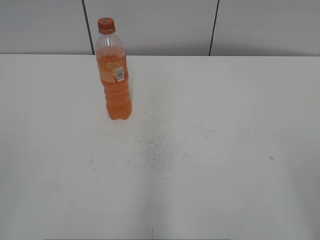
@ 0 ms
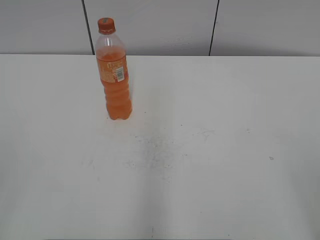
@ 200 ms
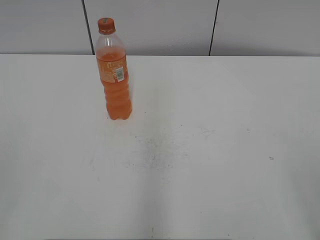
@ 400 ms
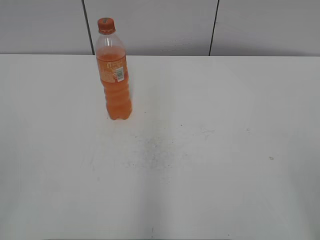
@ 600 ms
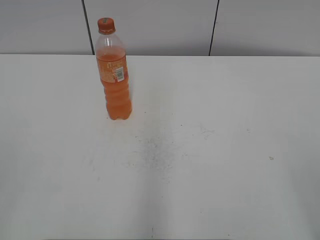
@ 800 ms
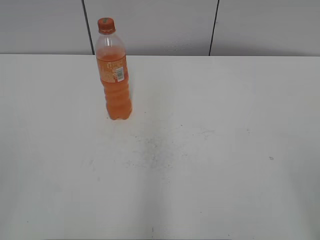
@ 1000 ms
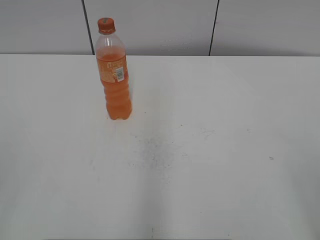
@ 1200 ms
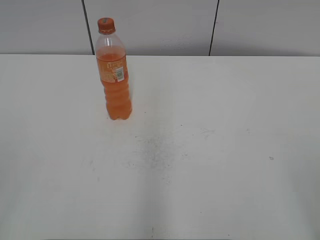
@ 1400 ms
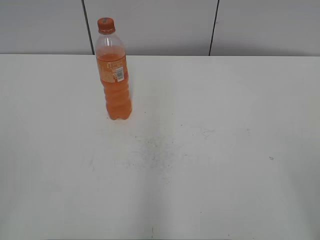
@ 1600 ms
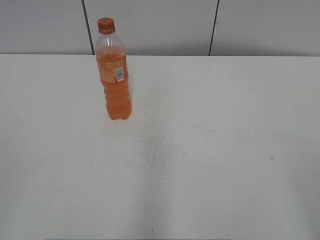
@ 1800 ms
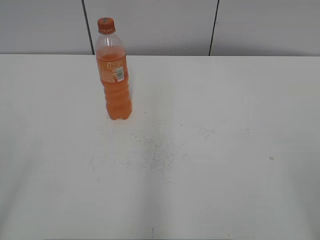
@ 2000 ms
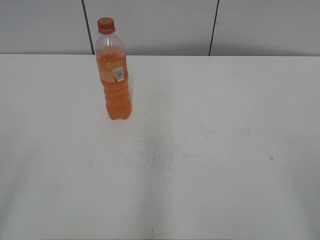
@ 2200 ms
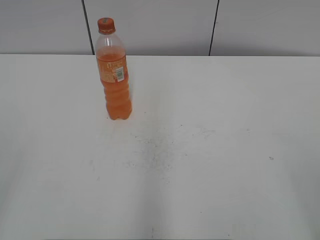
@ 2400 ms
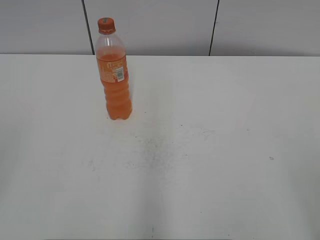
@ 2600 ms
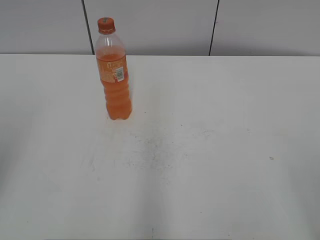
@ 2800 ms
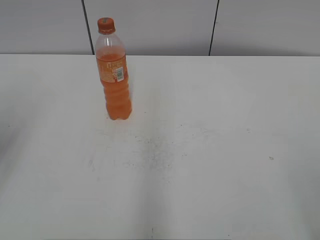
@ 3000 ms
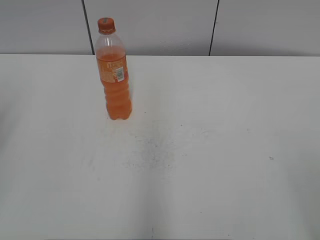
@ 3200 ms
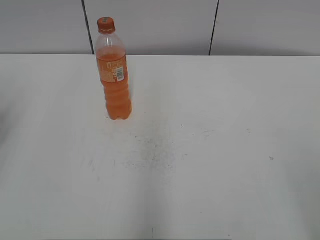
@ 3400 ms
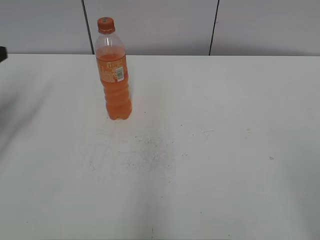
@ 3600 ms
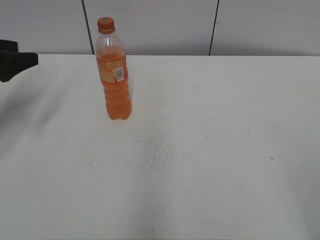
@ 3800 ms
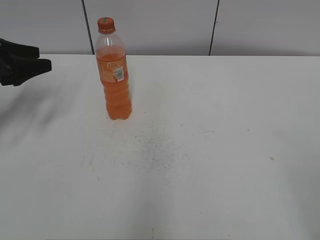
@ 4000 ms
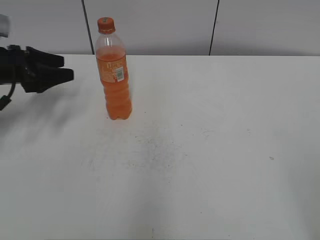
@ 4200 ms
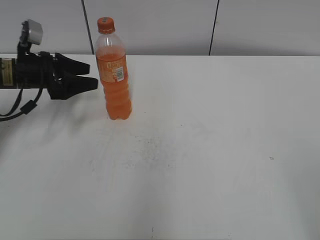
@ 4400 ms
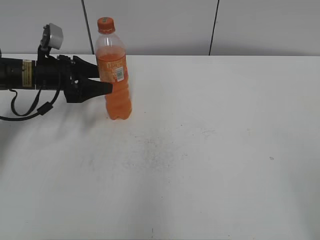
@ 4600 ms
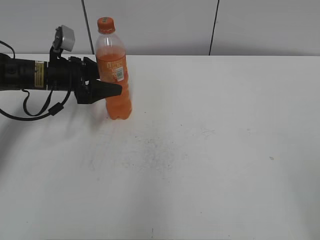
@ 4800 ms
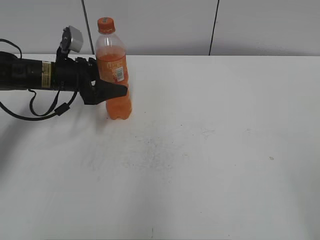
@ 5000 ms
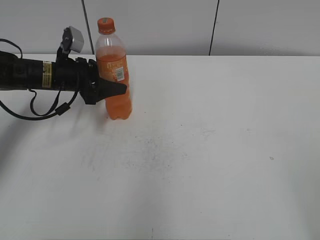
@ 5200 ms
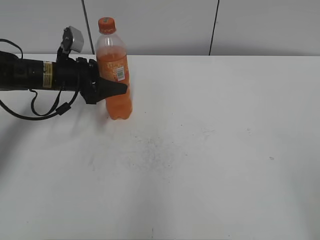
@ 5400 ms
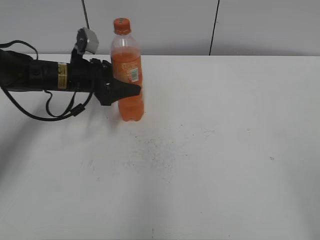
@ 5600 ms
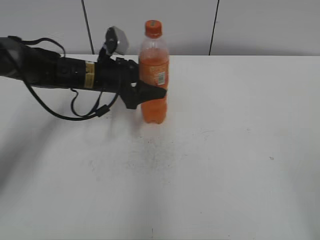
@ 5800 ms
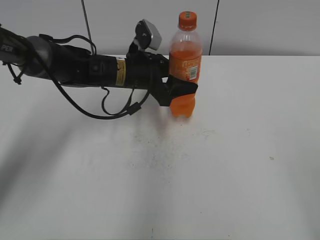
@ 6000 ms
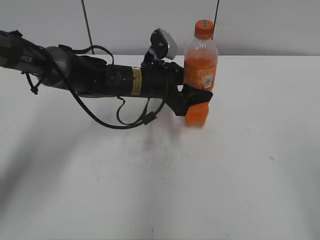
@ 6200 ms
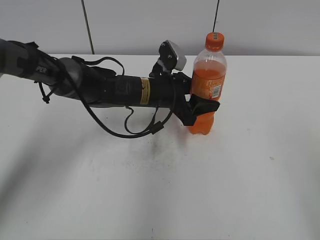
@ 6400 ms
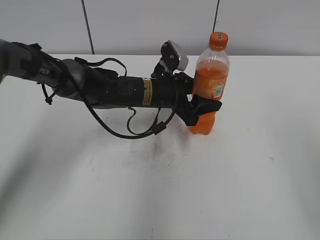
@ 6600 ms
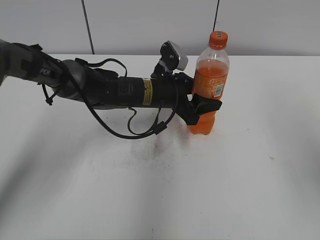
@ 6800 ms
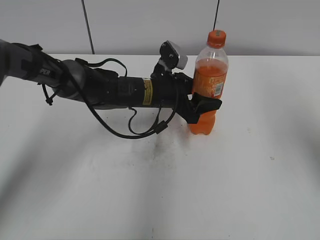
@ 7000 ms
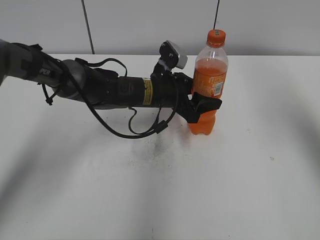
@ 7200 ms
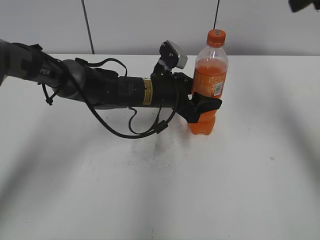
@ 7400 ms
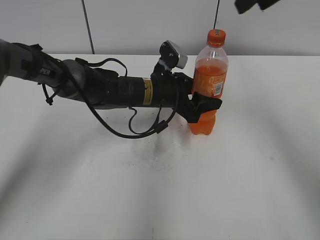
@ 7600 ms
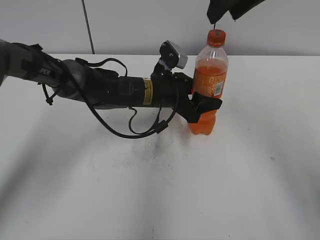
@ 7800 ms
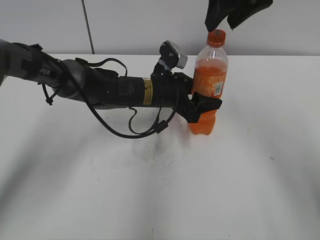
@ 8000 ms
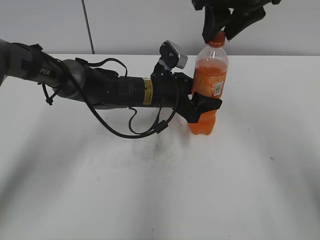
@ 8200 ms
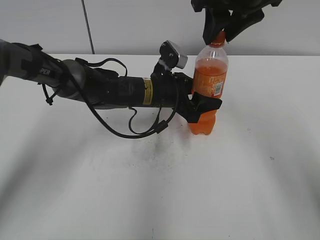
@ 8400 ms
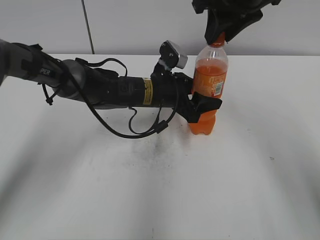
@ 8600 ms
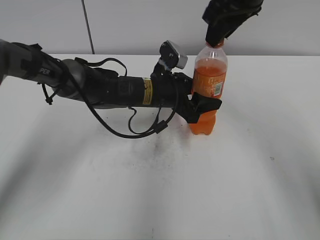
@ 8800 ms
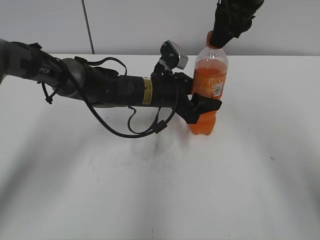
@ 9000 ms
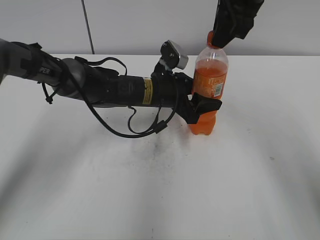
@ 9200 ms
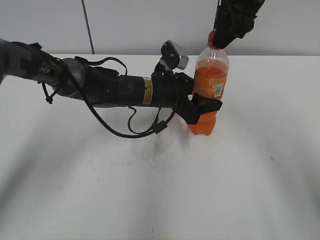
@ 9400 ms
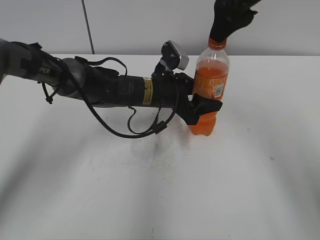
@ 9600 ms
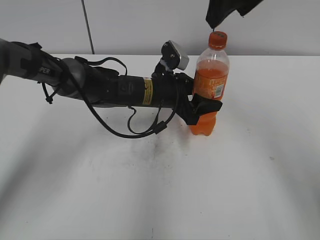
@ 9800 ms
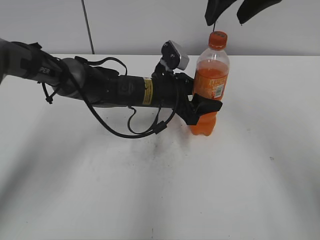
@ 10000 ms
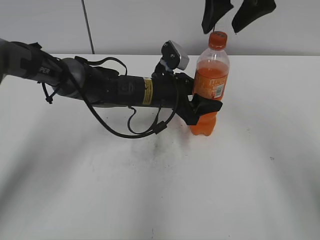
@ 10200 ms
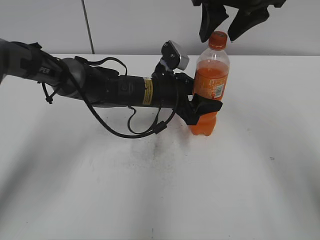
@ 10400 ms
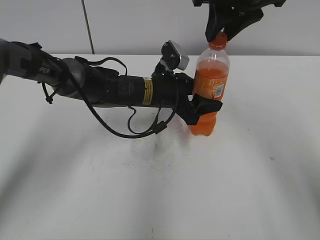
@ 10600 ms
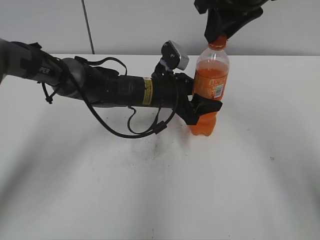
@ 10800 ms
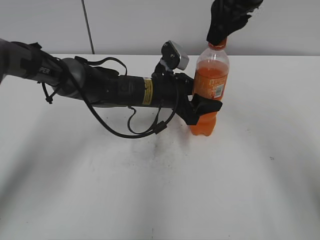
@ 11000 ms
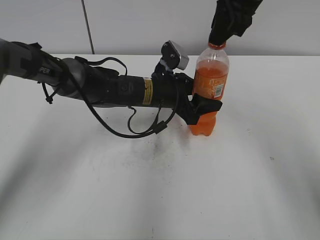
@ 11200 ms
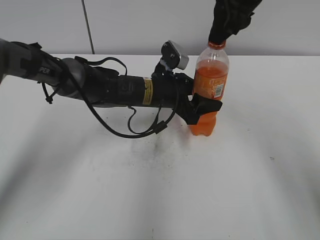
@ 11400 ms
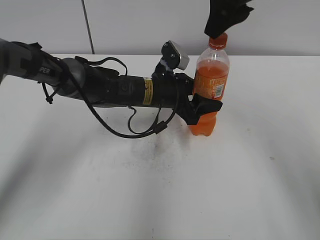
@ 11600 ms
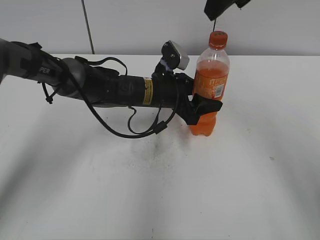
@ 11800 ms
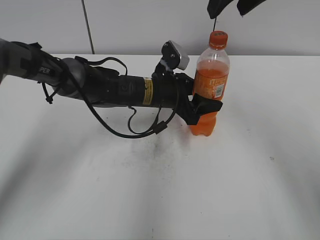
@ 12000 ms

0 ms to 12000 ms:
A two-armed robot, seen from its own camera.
Step, 0 ms to 5000 ms: Grab the Mirinda with the left hand.
Step, 5400 ms to 6800 ms: Move the Mirinda from left to right.
3000 ms to 4400 ms: The left gripper goes some 30 cm forward and downward.
4400 ms to 6000 ms: The left gripper goes some 20 cm to the right.
6000 ms to 7600 ms: The right gripper moves forward, approximately 35 cm. The left gripper moves to the right, about 5 cm.
7600 ms to 9000 ms: The right gripper shifts approximately 5 cm downward.
9000 ms to 10400 ms: The right gripper opens up.
10400 ms to 12000 ms: The right gripper closes, then opens again.

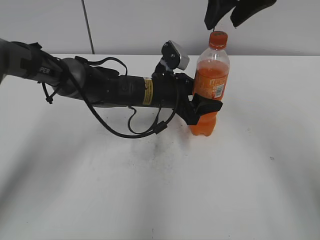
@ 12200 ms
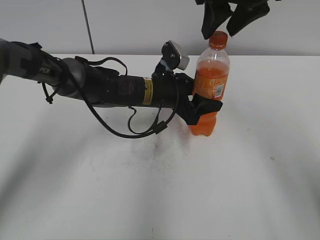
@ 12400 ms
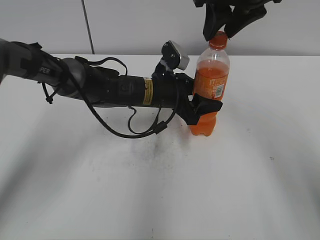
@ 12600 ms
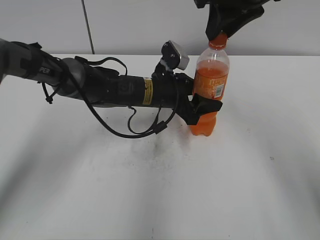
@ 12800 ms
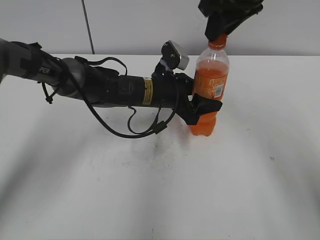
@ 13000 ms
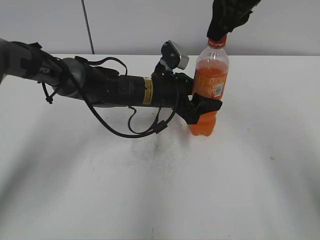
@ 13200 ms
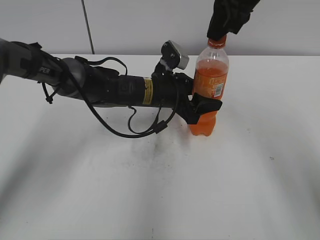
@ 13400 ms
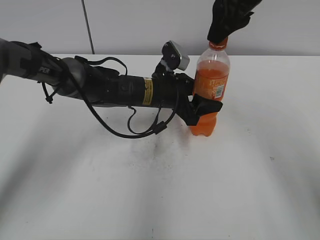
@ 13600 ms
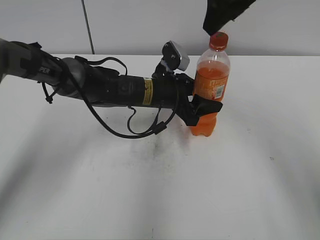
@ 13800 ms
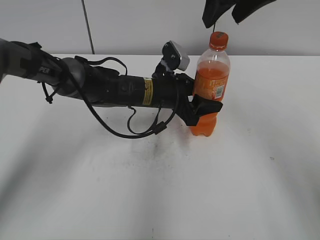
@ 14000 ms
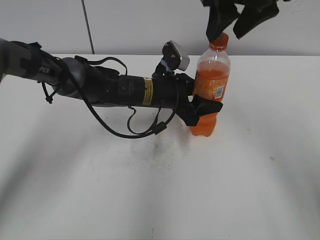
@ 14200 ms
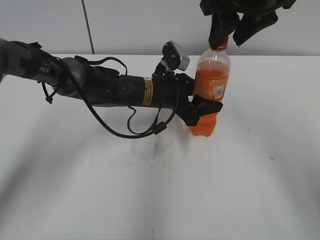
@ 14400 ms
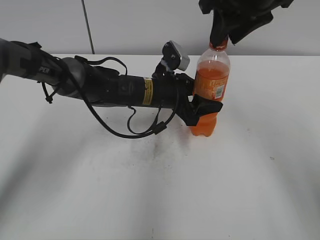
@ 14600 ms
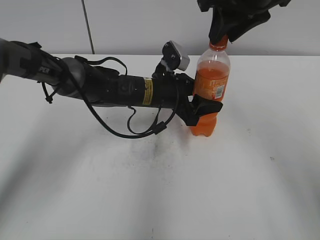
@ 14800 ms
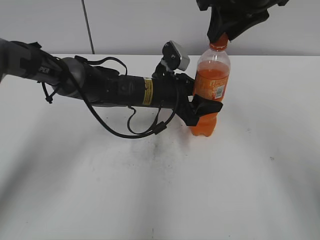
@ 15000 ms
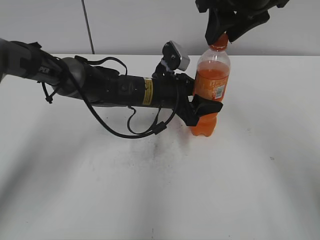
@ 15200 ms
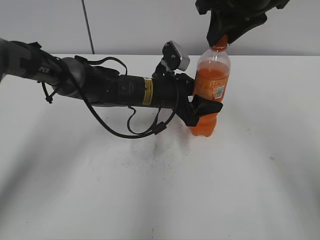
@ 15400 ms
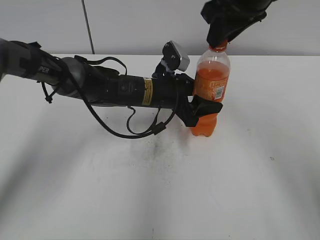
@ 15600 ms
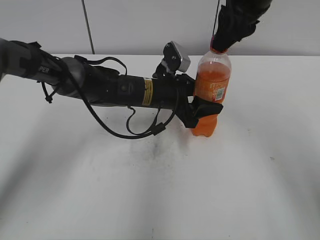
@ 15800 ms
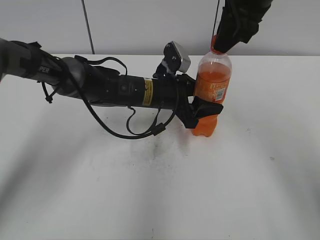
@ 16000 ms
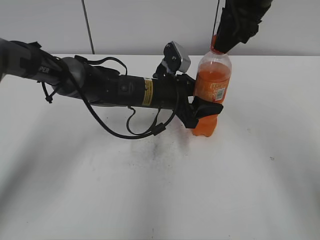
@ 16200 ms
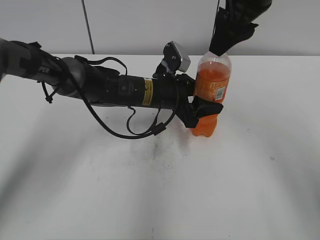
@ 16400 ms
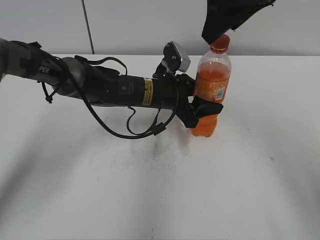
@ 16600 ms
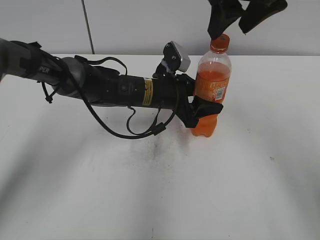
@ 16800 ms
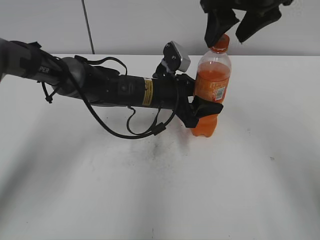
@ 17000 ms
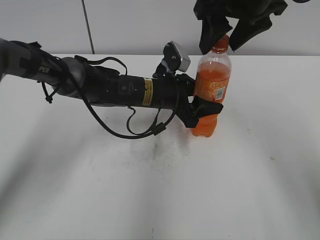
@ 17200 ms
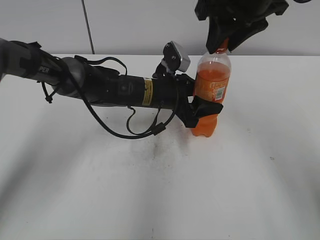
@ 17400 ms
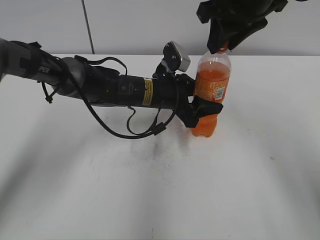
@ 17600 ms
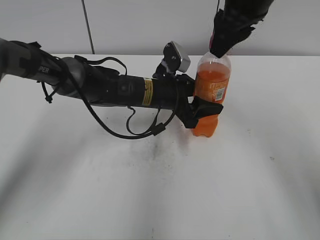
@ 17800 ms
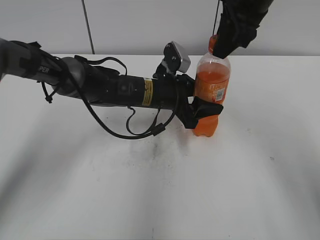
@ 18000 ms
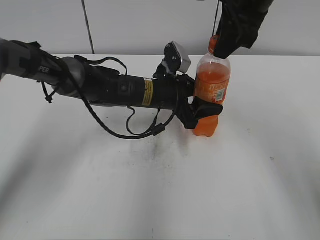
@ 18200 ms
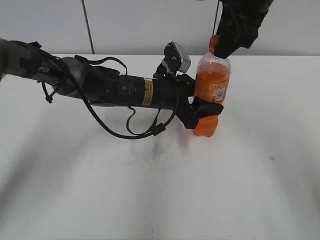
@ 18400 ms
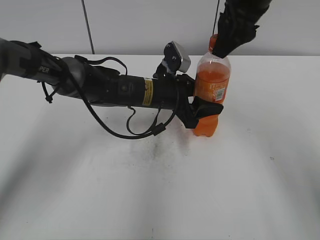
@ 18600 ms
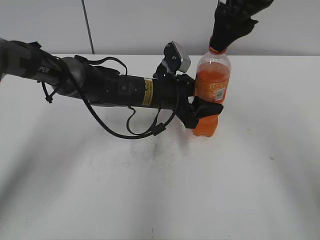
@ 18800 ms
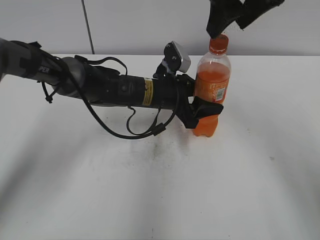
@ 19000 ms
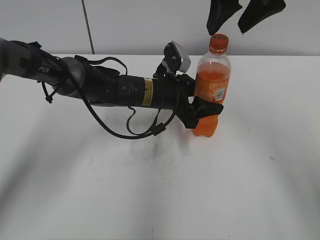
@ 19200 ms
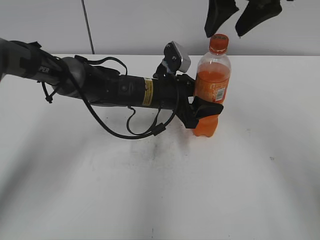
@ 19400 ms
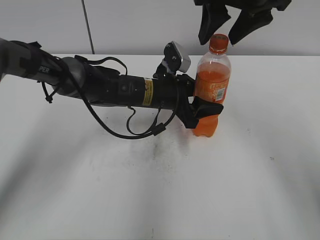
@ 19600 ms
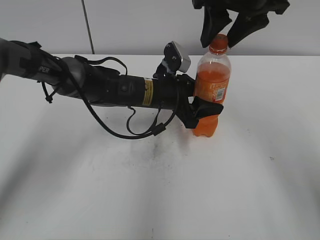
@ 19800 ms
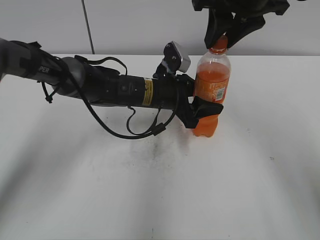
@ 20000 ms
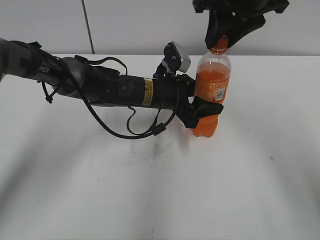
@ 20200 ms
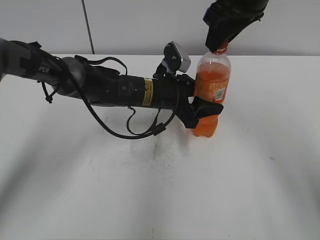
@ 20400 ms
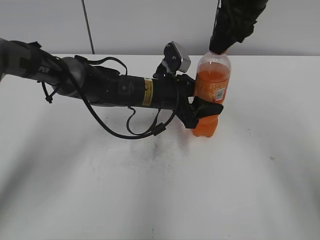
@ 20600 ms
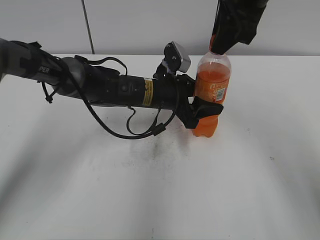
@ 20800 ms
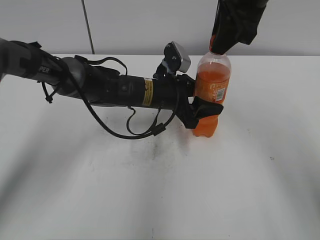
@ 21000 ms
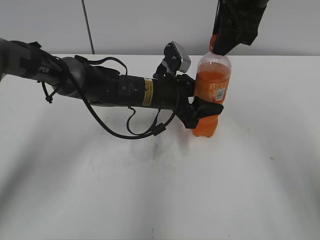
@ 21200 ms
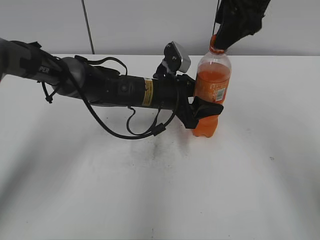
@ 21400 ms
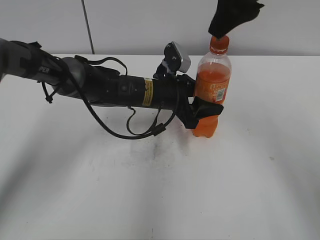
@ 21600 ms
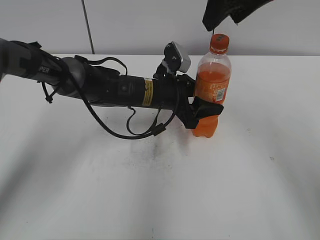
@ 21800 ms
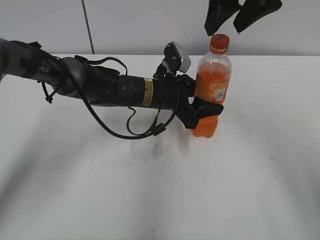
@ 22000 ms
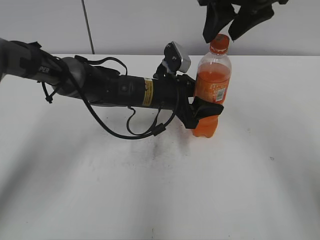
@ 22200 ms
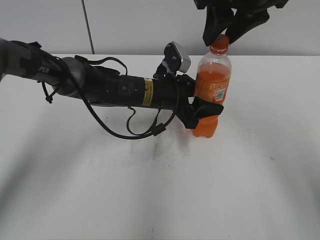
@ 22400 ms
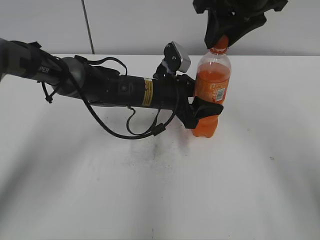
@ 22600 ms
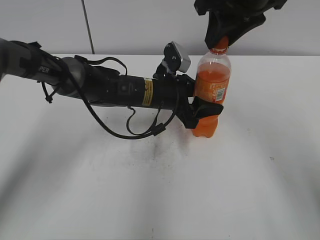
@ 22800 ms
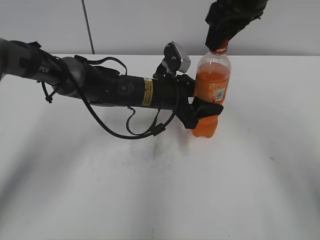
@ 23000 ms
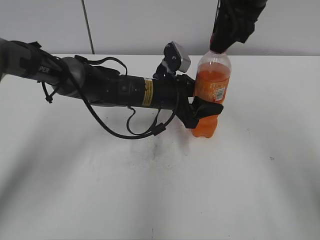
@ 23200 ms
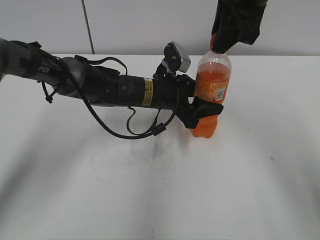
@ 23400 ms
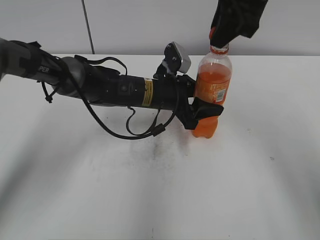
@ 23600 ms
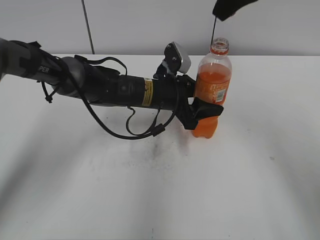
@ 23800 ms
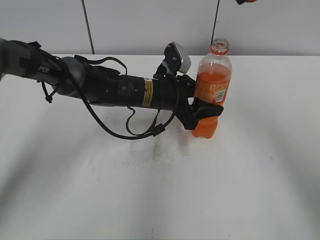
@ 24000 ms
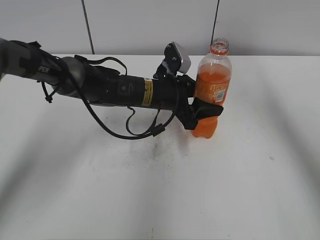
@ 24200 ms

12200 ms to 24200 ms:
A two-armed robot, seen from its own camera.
12200 ms to 13800 ms: The right gripper closes, then reopens.
13800 ms to 15200 ms: The right gripper closes.
15200 ms to 16600 ms: The right gripper opens.
16600 ms to 18200 ms: The right gripper closes up.
18200 ms to 19800 ms: The right gripper opens.
21200 ms to 22600 ms: The right gripper opens, then closes once more.
22600 ms to 24200 ms: The right gripper shifts approximately 10 cm to the right and upward.
